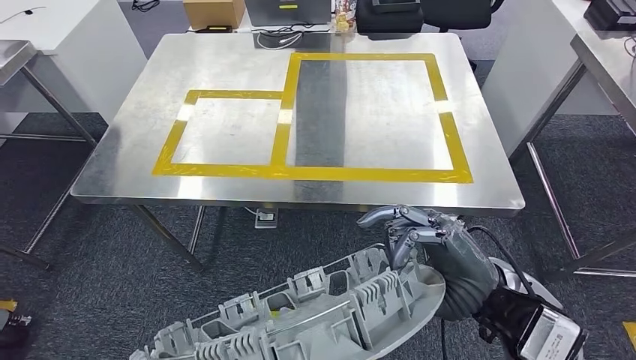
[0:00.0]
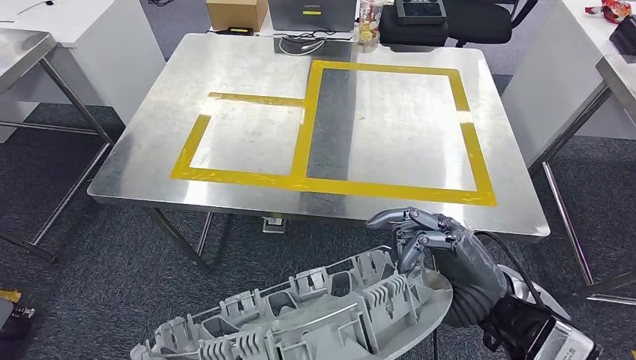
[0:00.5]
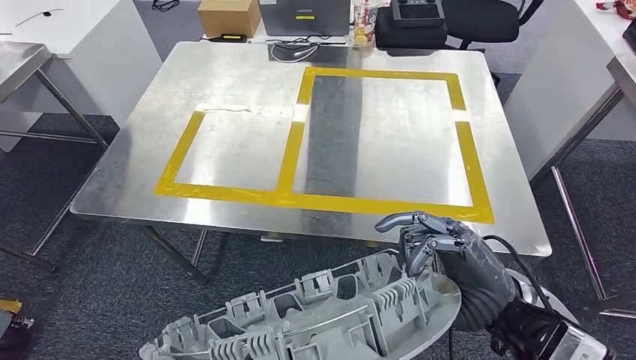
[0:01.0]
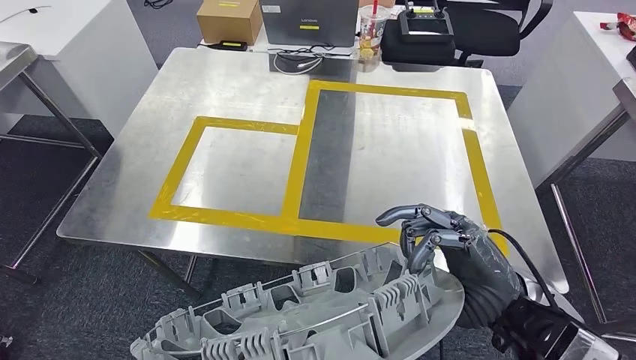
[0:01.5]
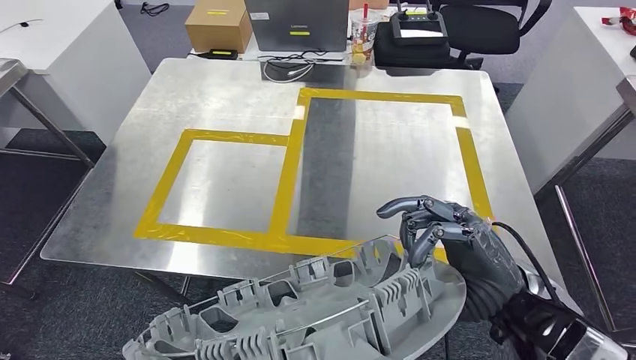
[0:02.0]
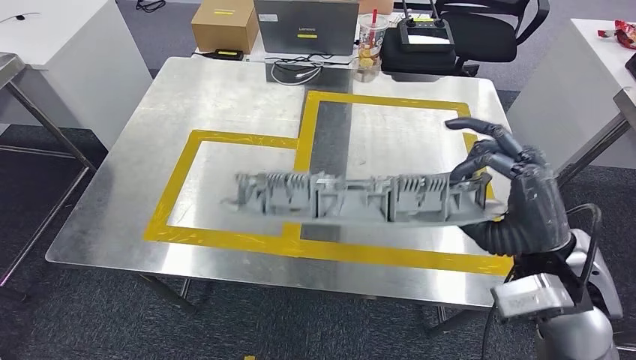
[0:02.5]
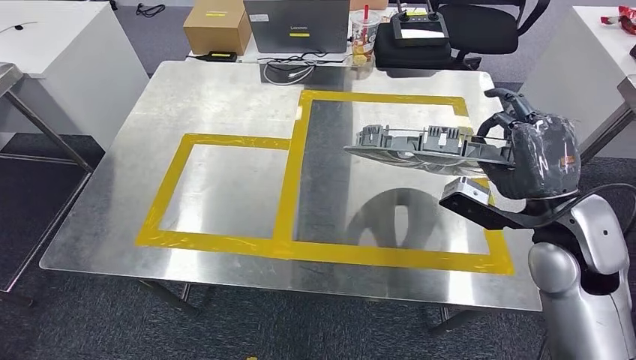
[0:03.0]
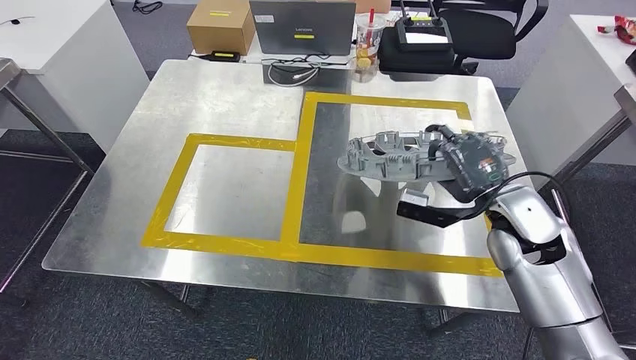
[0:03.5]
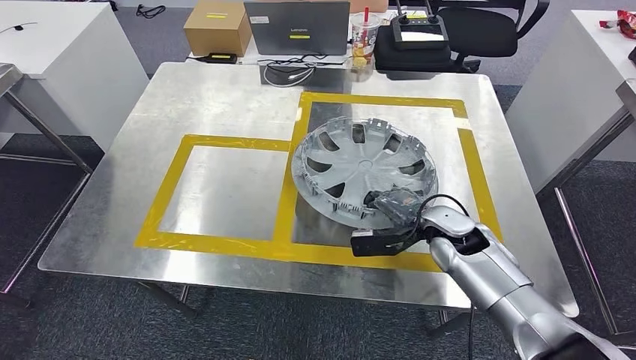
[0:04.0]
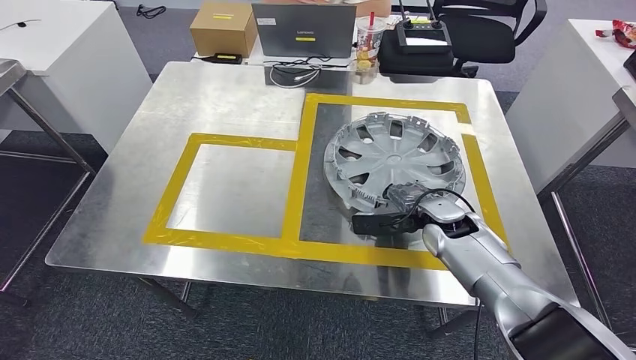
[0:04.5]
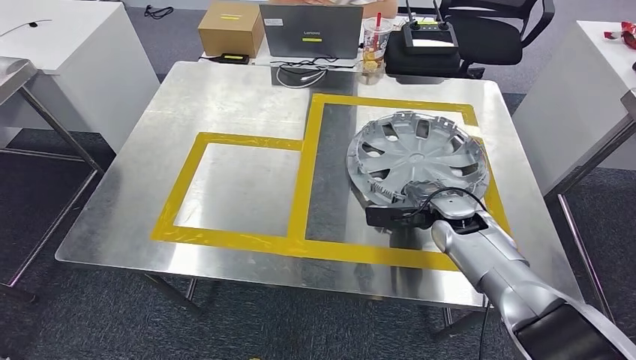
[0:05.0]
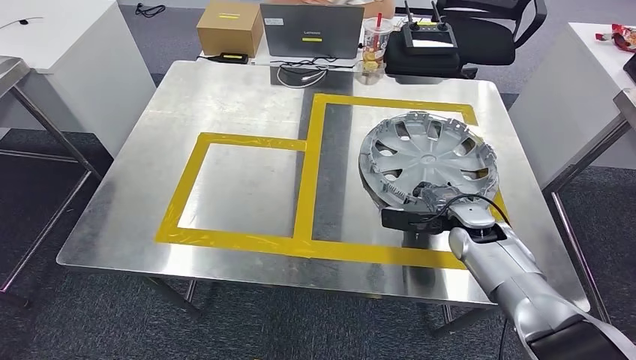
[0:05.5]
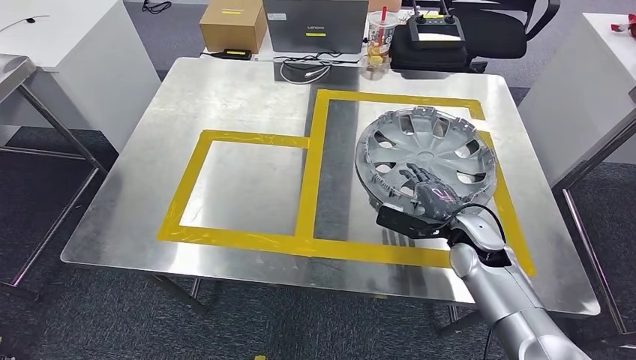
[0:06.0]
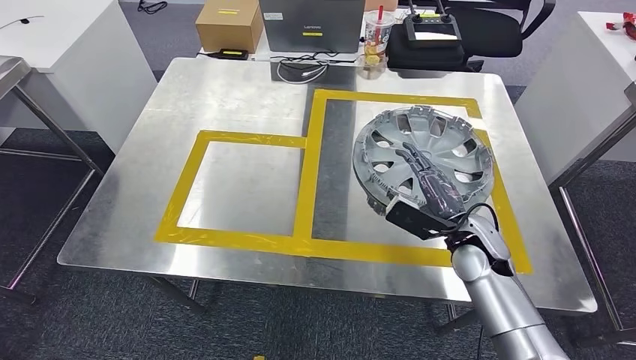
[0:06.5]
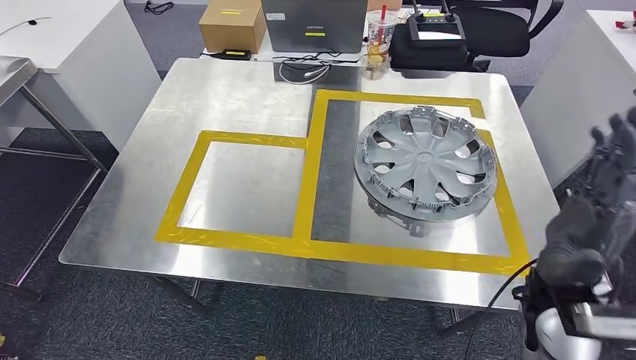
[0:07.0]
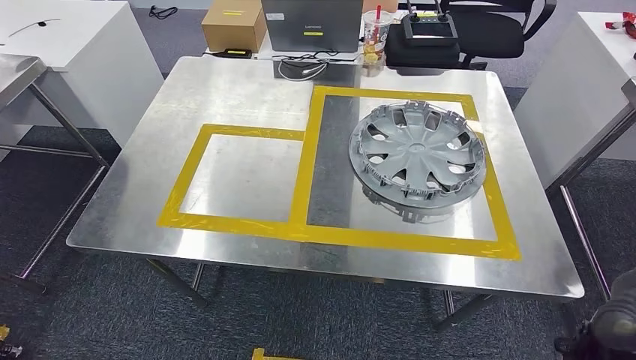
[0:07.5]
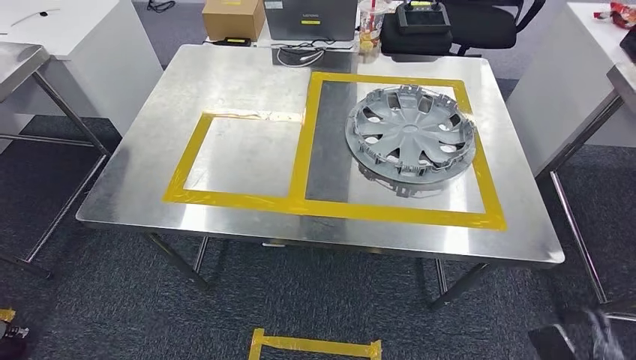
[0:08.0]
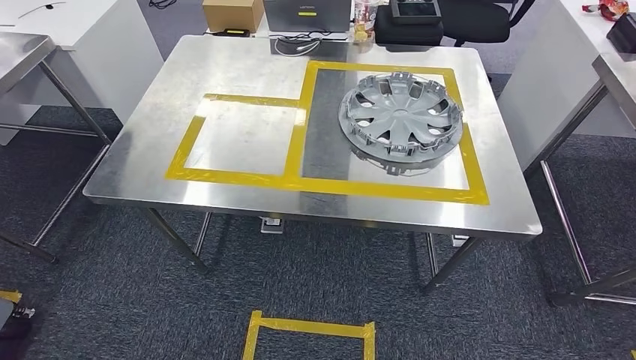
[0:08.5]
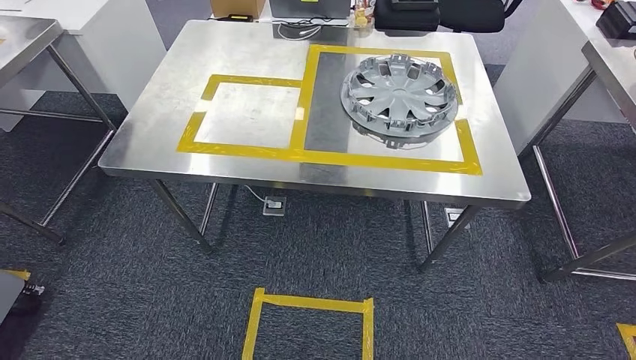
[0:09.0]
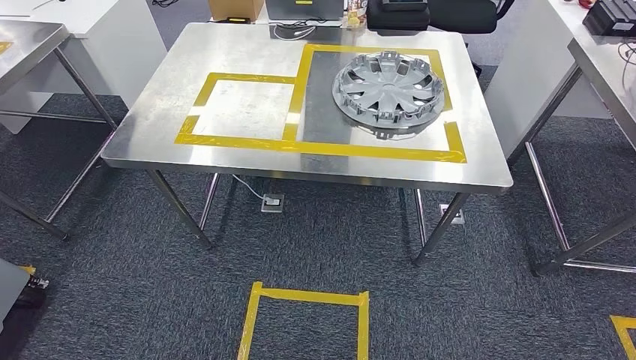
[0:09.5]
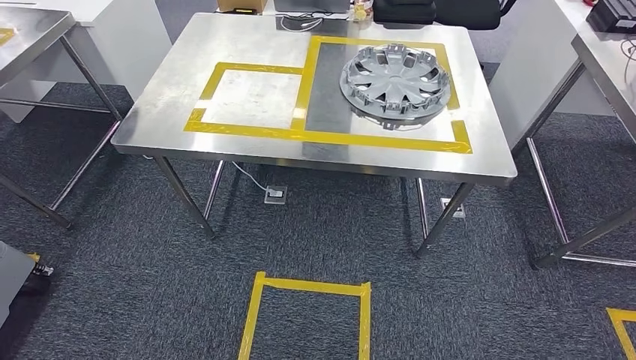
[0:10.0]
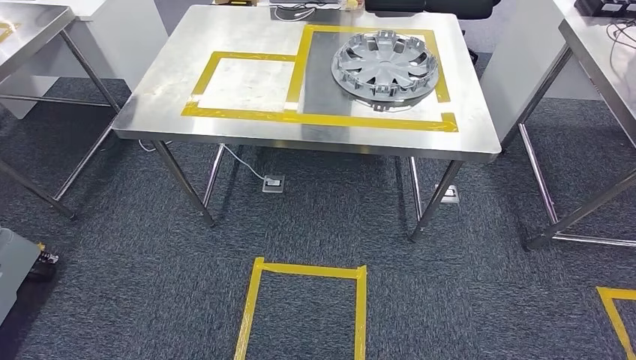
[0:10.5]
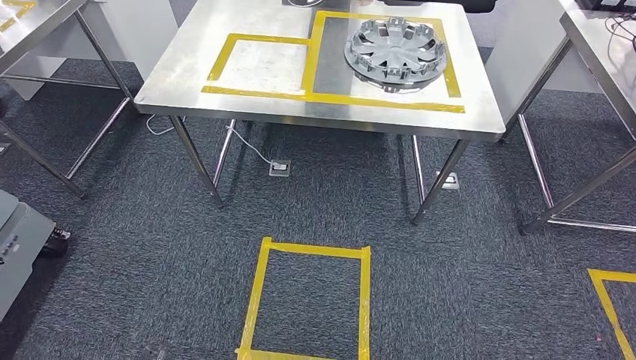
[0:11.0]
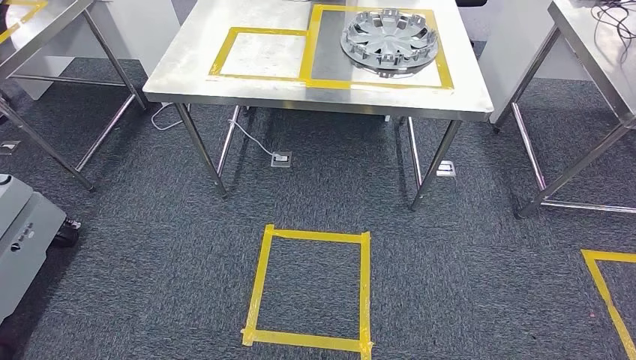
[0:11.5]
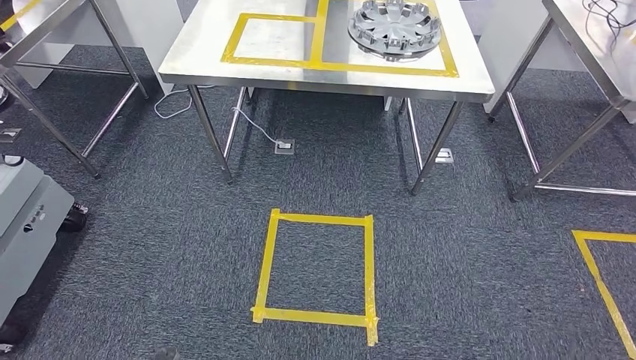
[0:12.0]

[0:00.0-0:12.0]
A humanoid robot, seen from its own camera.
Step, 0:00.0 to 0:06.5: Insert the small component into the corresponding slot on the workbench.
Step, 0:07.0 to 0:12.0: Return to the initial position at the workbench.
